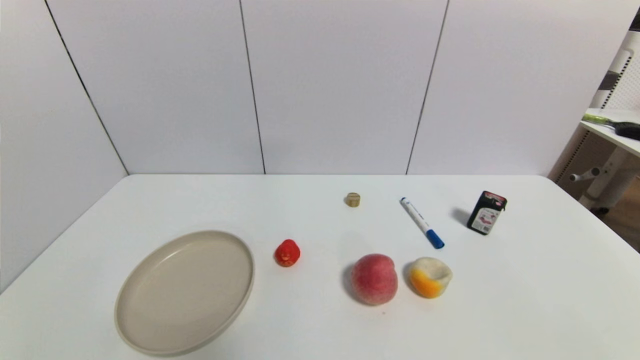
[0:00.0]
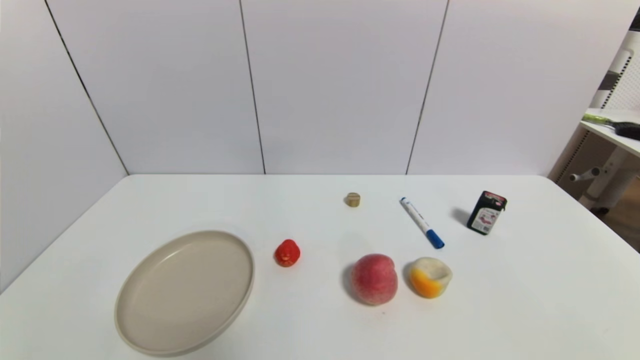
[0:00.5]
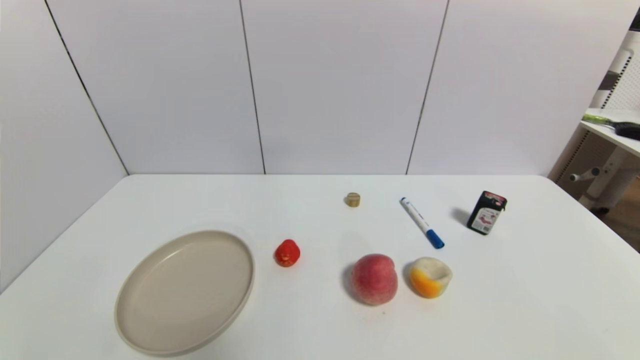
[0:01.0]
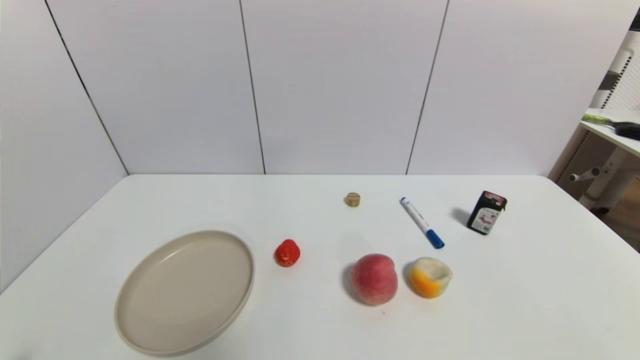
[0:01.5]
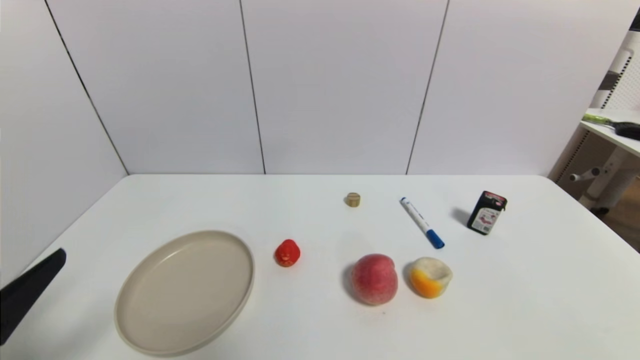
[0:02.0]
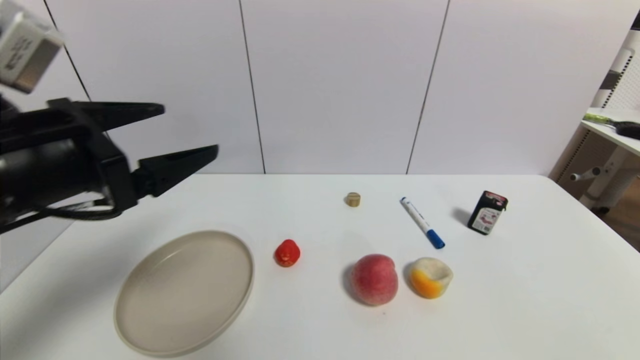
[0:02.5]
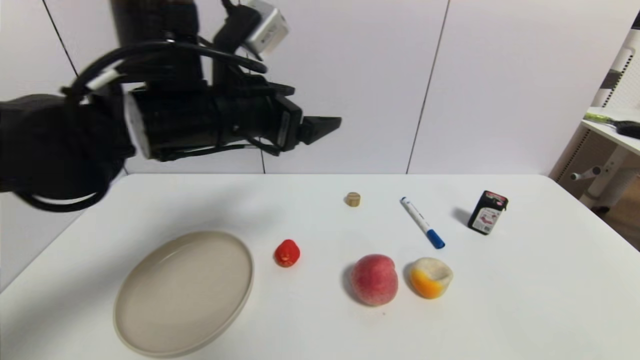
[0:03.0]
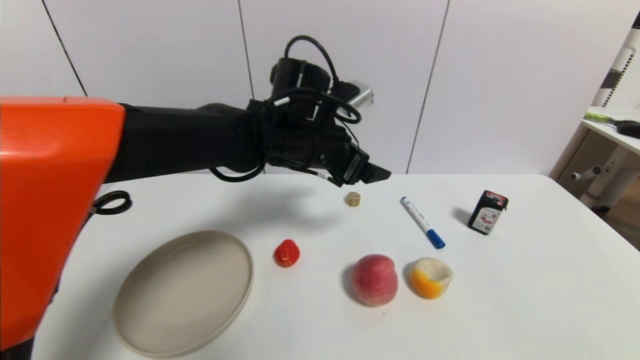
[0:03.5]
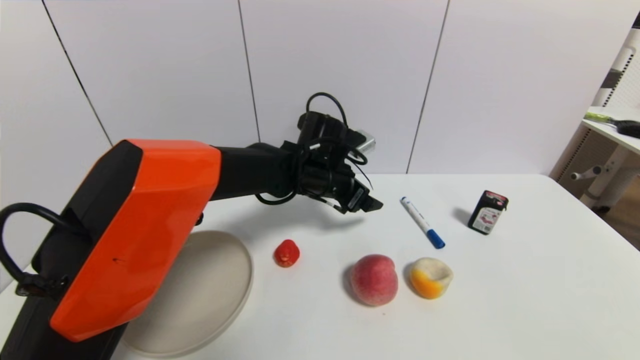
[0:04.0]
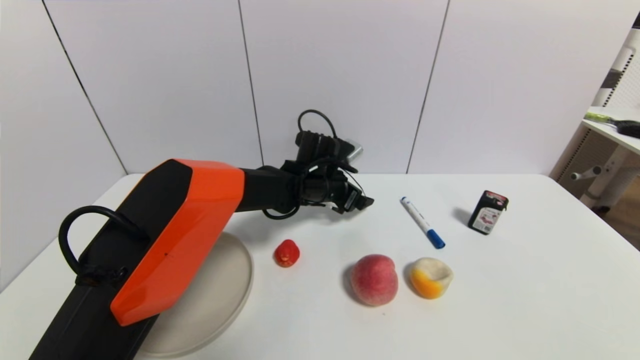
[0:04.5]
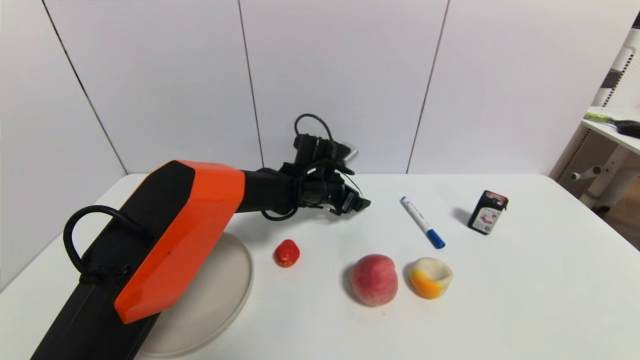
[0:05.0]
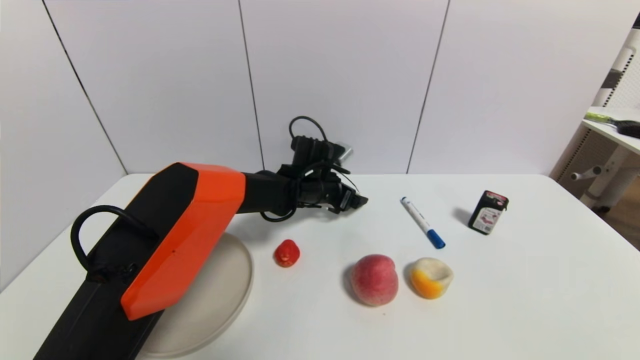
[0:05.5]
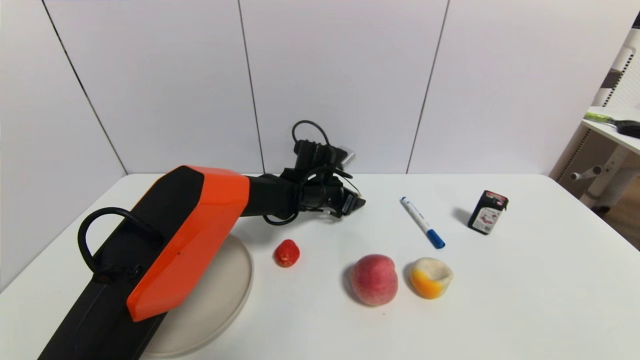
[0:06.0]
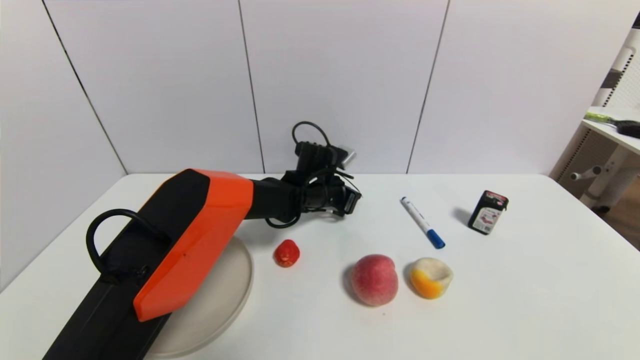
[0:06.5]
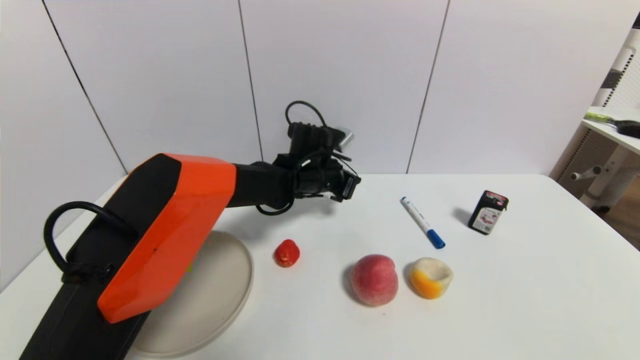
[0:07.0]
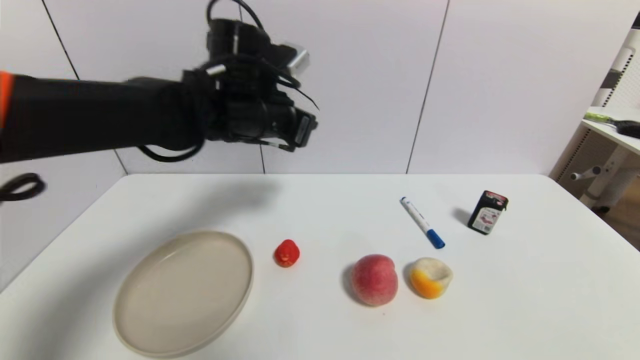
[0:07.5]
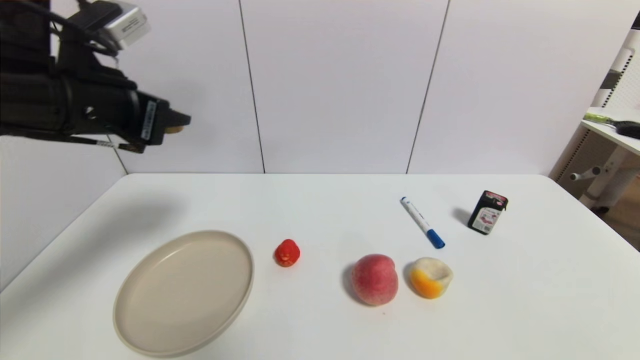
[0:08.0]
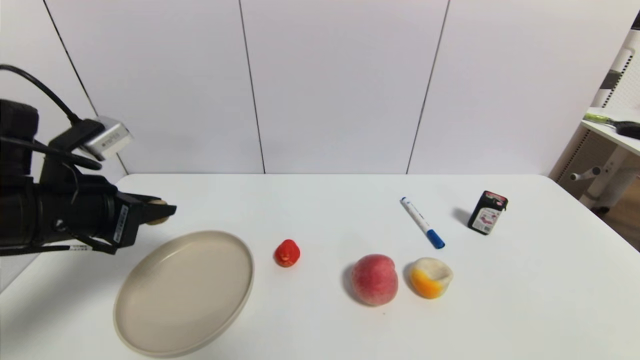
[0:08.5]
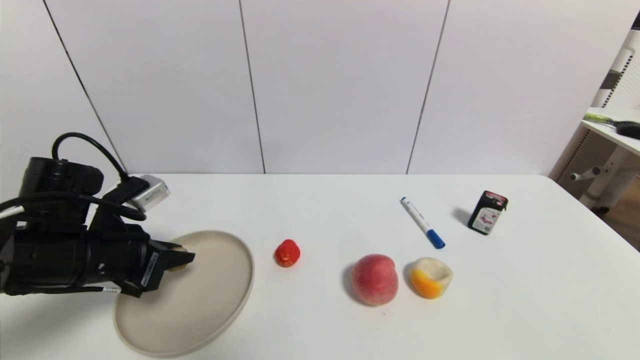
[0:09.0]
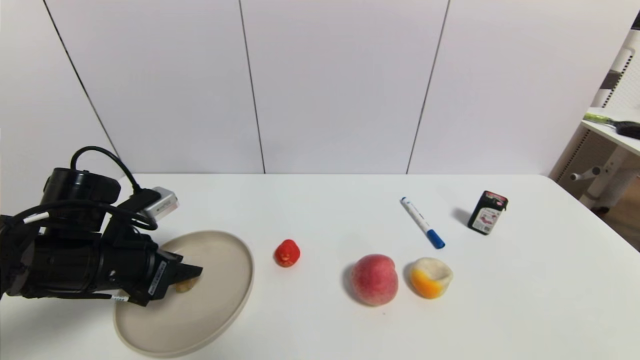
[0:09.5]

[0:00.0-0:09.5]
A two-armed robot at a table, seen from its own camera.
Task of the whole recording: use a gripper to pick the target object and place on the brown plate.
Step, 0:00.0 to 0:06.0: Grasp the round wooden block with the left gripper.
0:00.0 to 0:02.0: The left gripper is displaced upward and forward by roughly 15 cm.
0:02.0 to 0:04.0: The left gripper is displaced forward and to the right by roughly 40 cm.
0:04.0 to 0:05.5: The left gripper goes some 5 cm downward.
0:05.5 to 0:07.5: The left gripper shifts some 25 cm upward, backward and to the left, and closes its fingers.
0:07.5 to 0:09.5: The left gripper goes some 25 cm to the left, downward and backward, and opens.

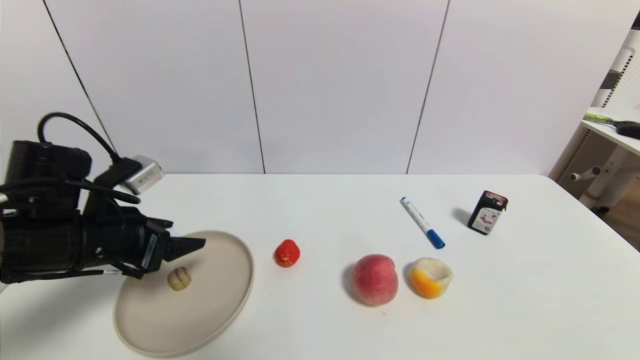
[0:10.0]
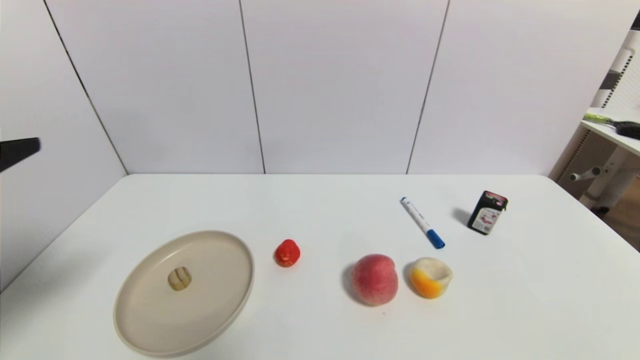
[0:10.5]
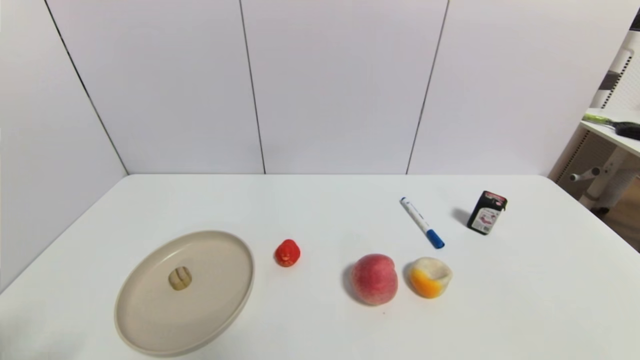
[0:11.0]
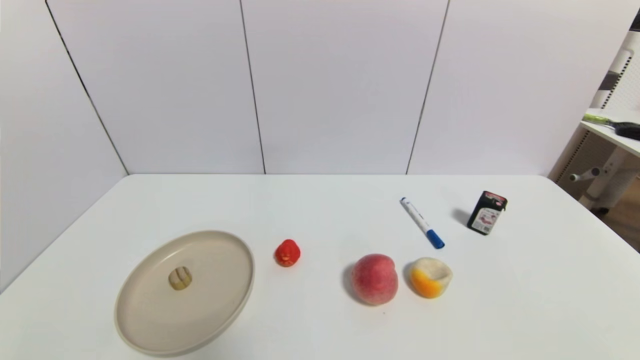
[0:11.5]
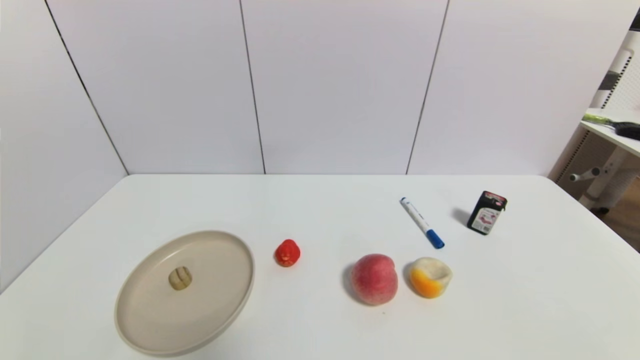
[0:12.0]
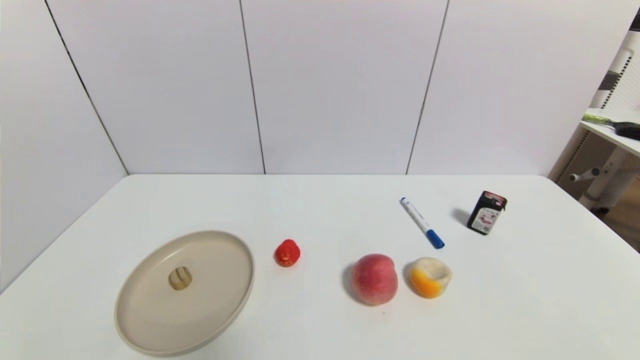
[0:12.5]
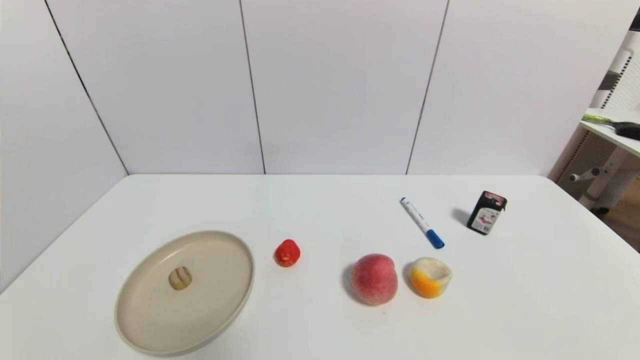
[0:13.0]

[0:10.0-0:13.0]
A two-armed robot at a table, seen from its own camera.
Task of the whole recording: use a gripper to pick the target object and place on the brown plate.
0:10.0 to 0:11.5: The left gripper moves backward and downward, roughly 25 cm.

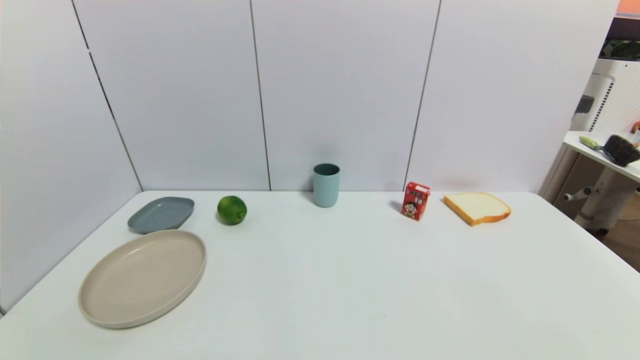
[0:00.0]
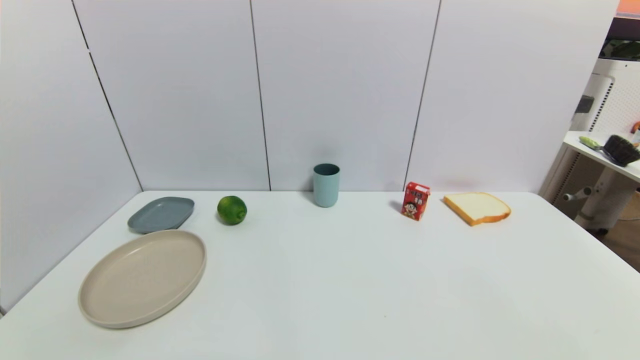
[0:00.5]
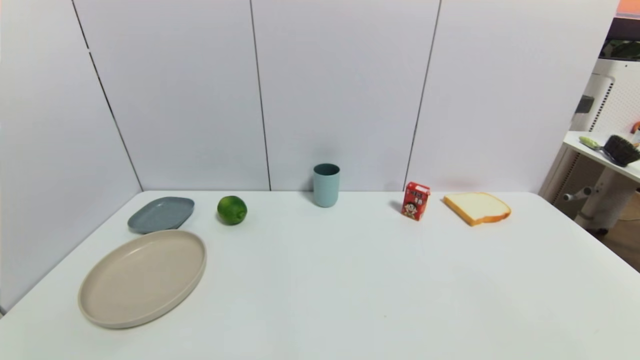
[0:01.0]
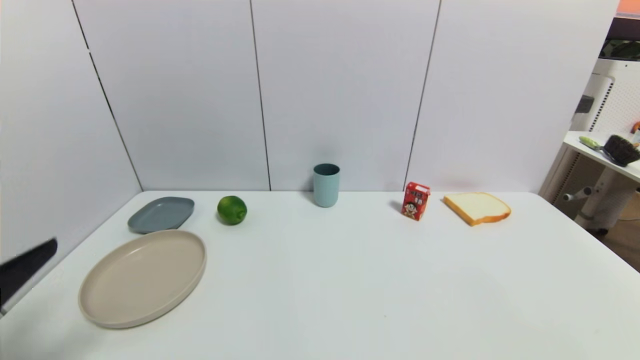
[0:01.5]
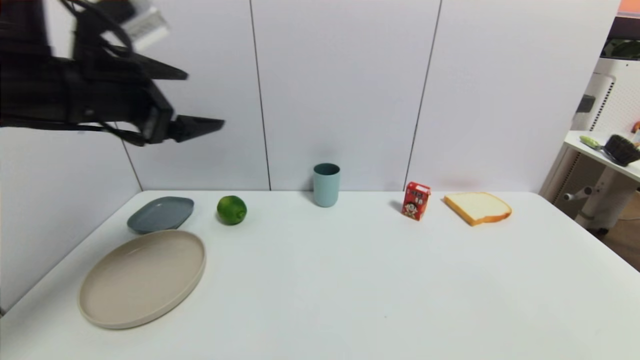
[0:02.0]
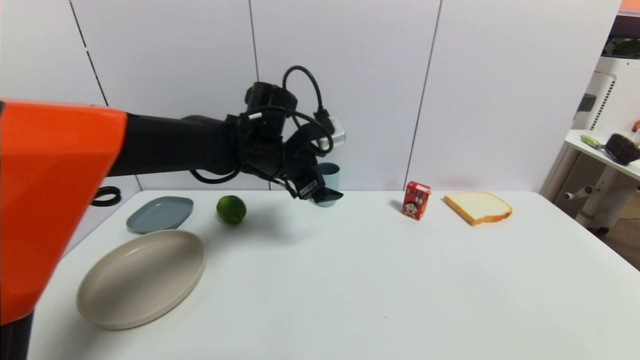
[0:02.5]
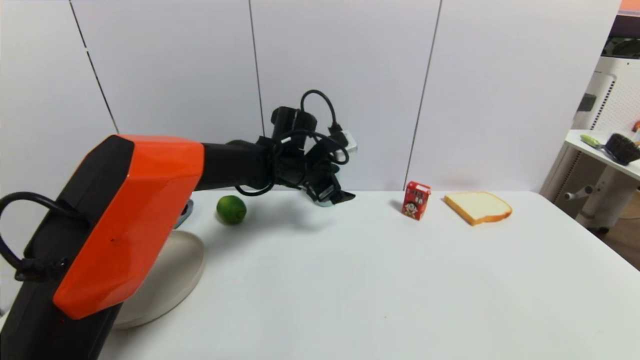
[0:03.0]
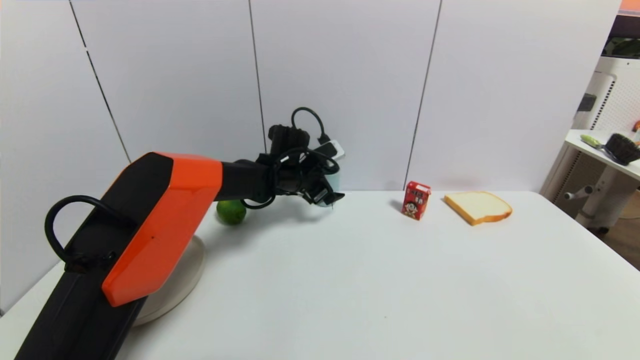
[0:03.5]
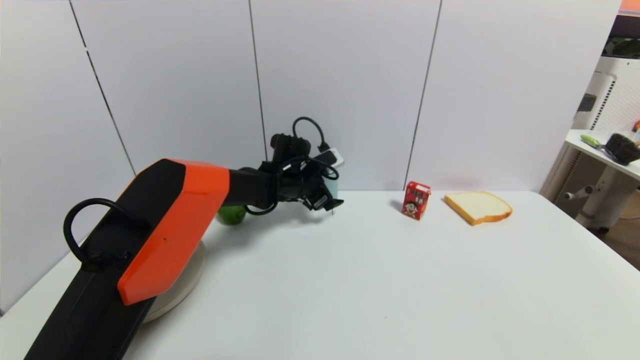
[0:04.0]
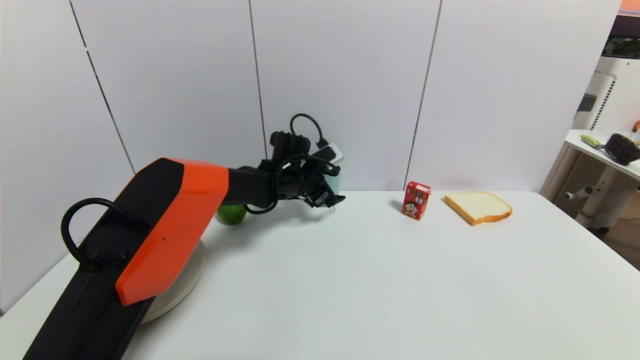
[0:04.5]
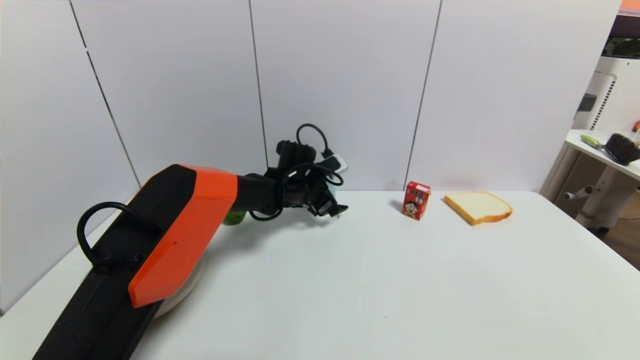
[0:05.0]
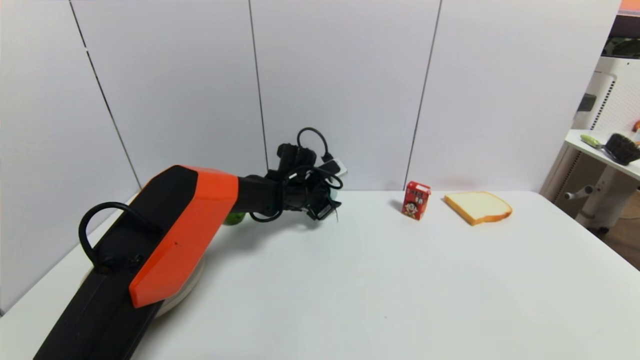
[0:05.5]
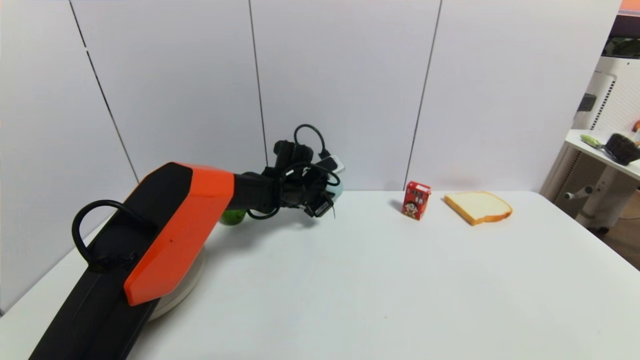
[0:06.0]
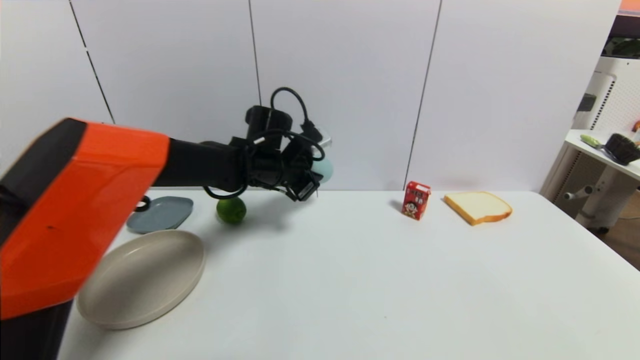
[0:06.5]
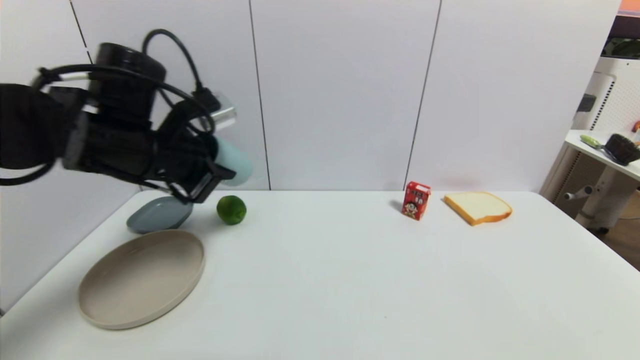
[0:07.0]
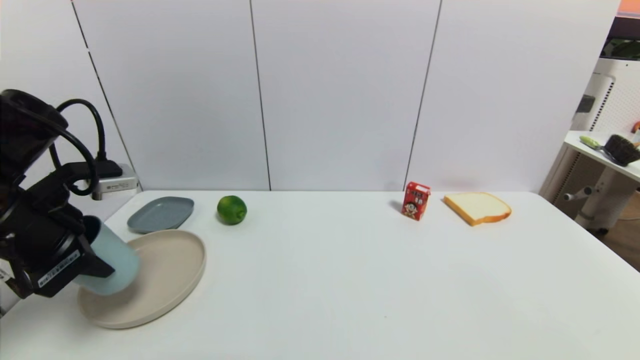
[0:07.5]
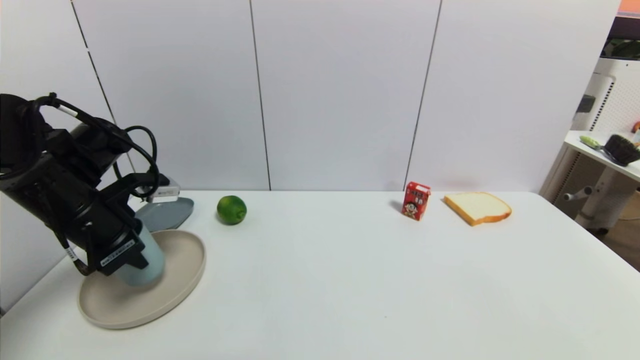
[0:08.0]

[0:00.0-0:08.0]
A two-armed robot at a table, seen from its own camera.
Task of the whole recording: use a gripper to pick the target object and place on the brown plate.
Step, 0:00.0 to 0:06.0: Grasp the blue cup with the left gripper.
0:00.0 to 0:02.0: The left gripper moves forward and upward, some 40 cm.
0:02.0 to 0:04.0: The left gripper travels downward, forward and to the right by some 35 cm.
0:04.0 to 0:06.0: The left gripper closes its fingers.
0:06.0 to 0:08.0: The left gripper heads to the left, backward and upward, covering about 30 cm.
